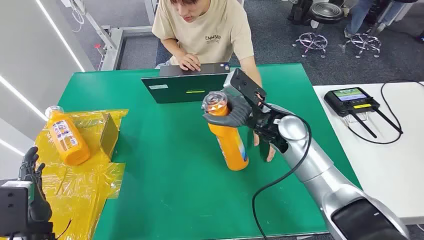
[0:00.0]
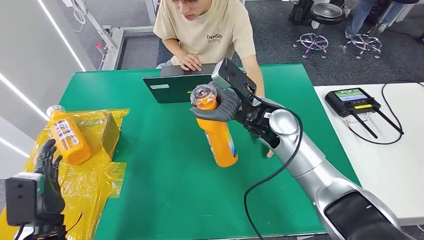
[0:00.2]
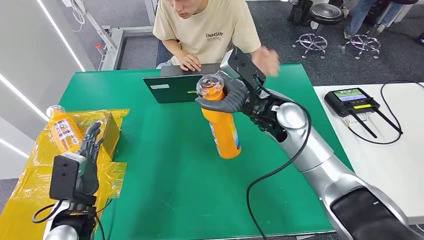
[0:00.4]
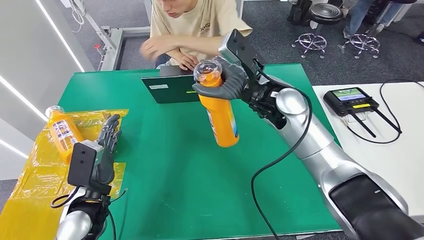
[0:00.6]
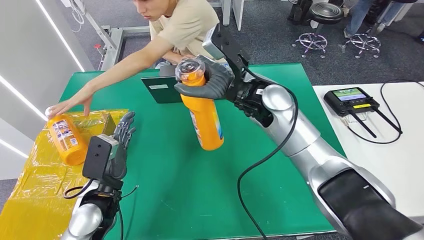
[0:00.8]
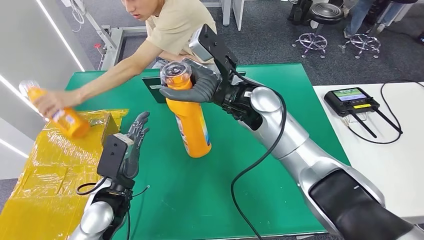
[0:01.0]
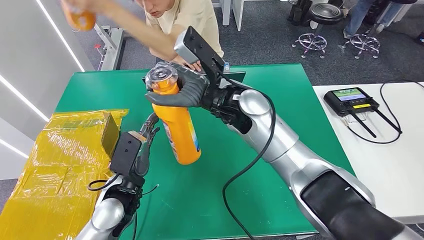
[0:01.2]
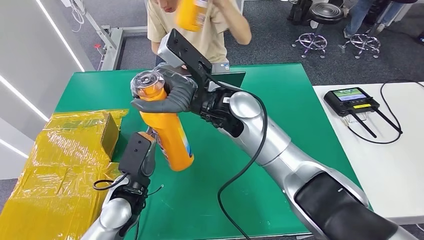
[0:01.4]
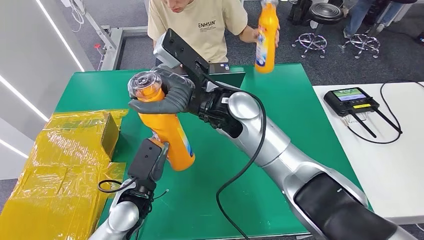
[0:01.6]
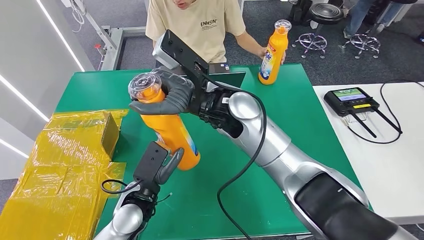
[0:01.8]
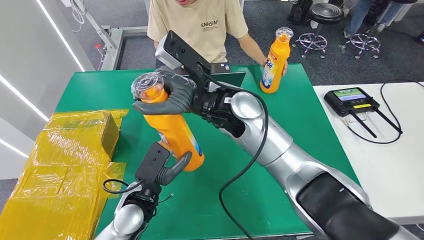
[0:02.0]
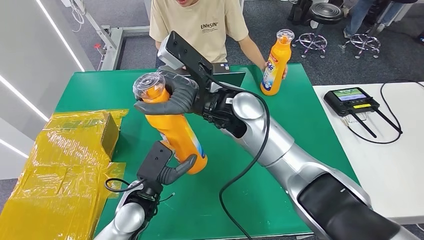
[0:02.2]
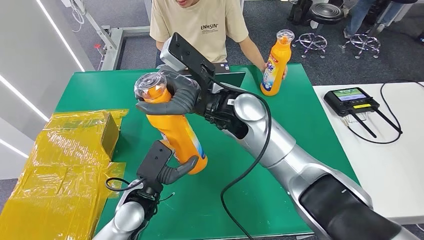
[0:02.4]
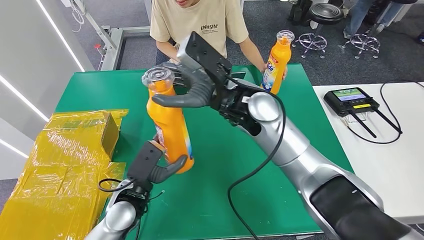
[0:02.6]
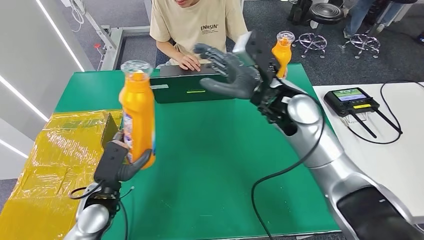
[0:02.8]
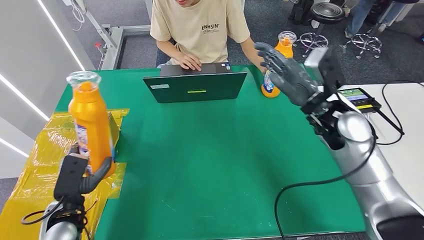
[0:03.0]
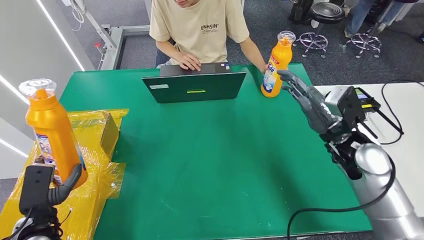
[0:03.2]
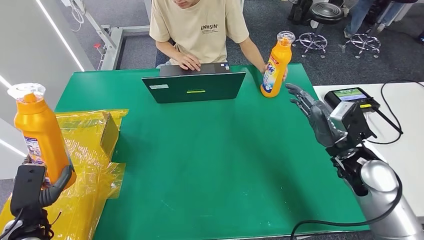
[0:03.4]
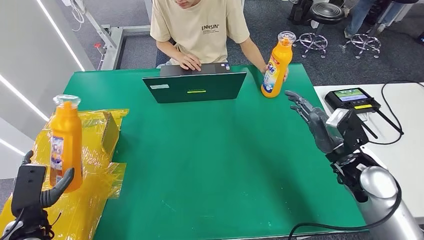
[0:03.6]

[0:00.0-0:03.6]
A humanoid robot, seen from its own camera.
Step, 0:00.0 to 0:01.2: Pick up the bottle from the table.
Step, 0:01.4 to 0:03.6: Turn the bottle to the front side.
